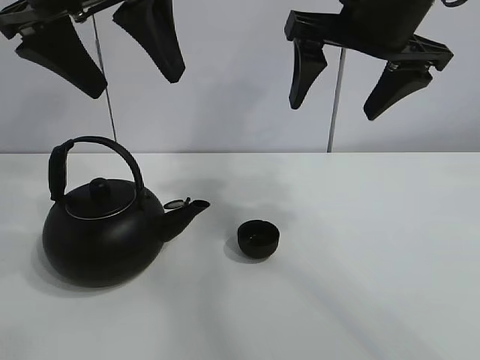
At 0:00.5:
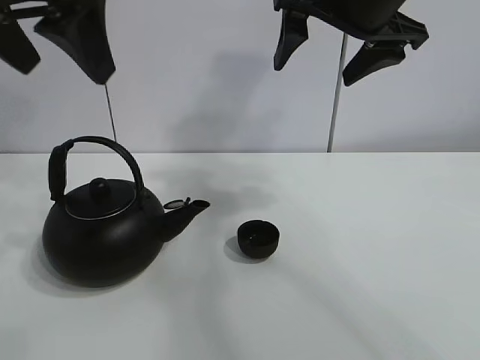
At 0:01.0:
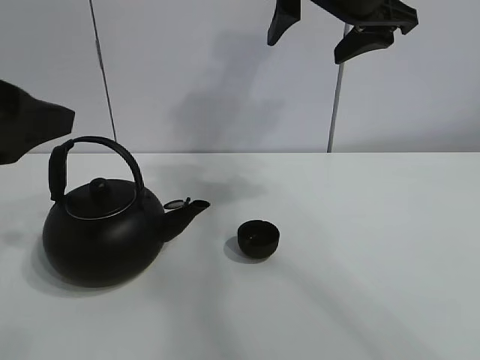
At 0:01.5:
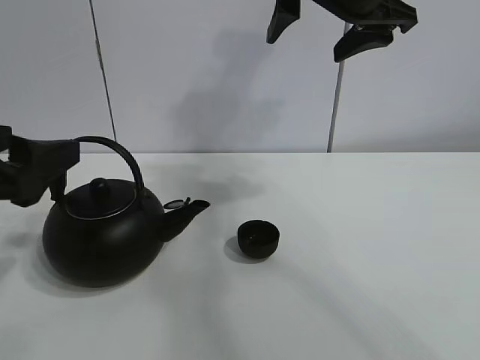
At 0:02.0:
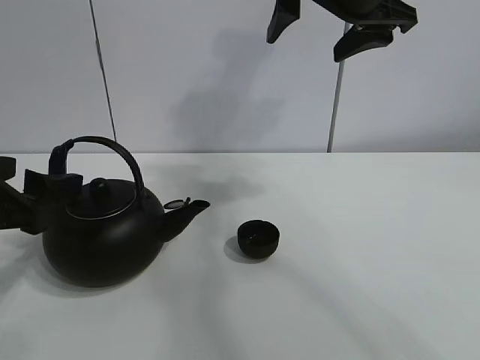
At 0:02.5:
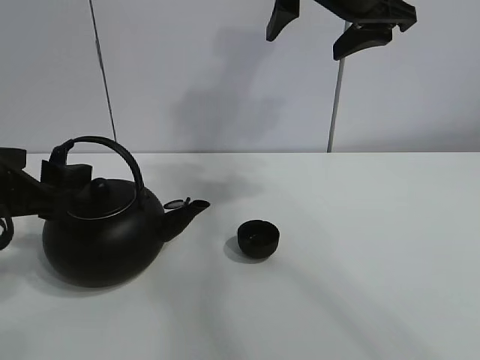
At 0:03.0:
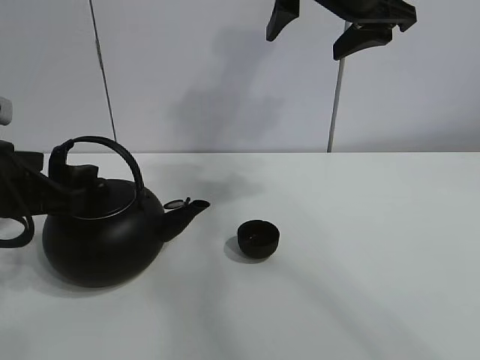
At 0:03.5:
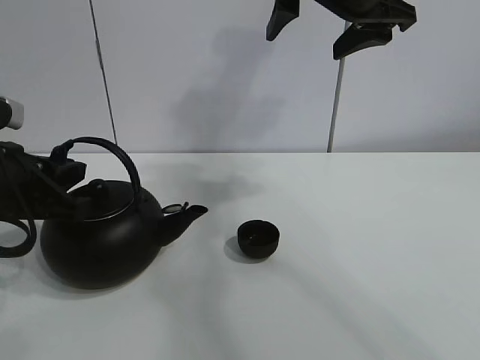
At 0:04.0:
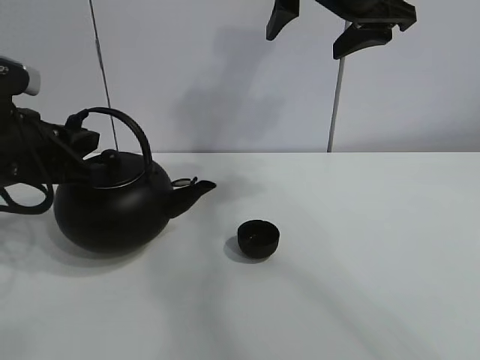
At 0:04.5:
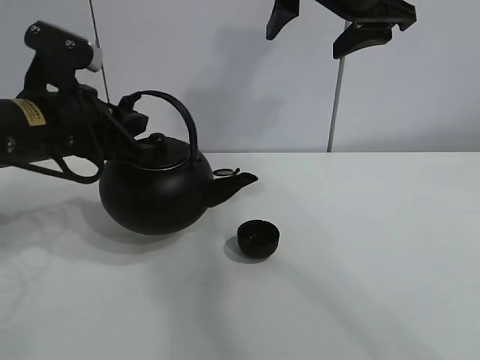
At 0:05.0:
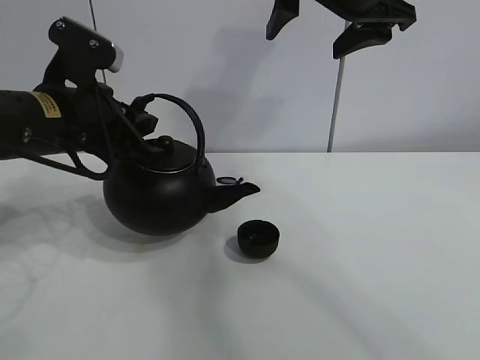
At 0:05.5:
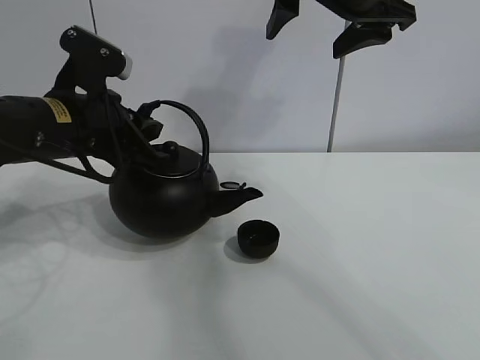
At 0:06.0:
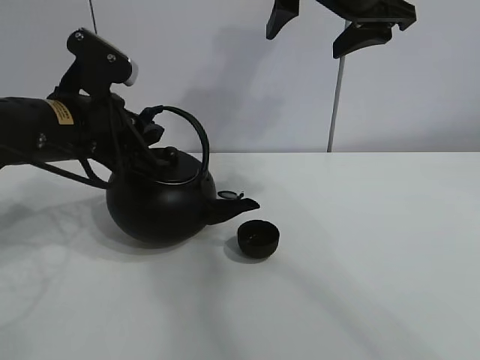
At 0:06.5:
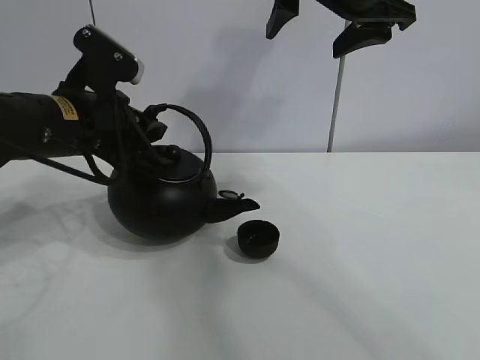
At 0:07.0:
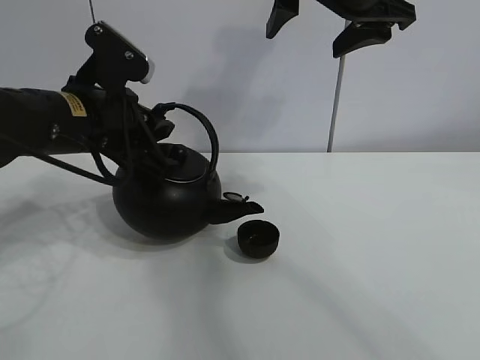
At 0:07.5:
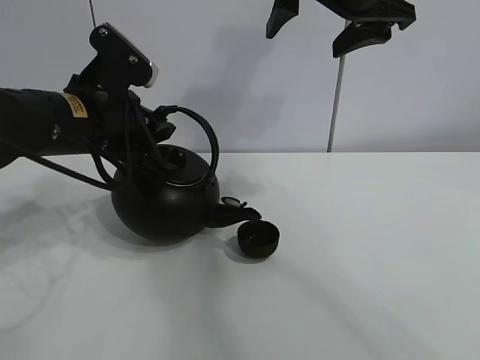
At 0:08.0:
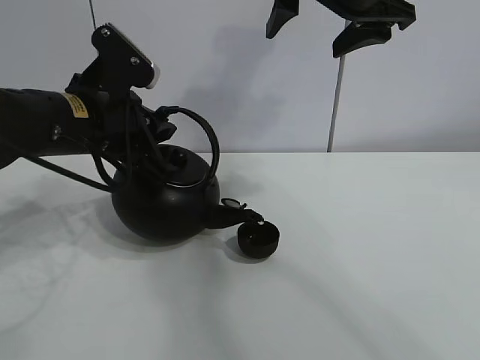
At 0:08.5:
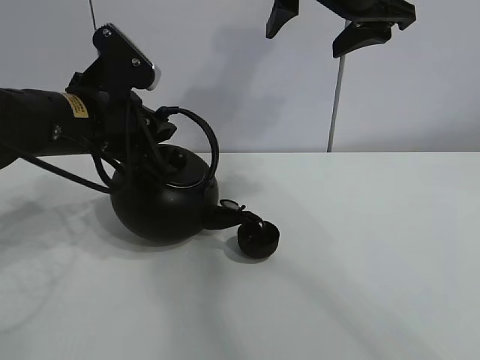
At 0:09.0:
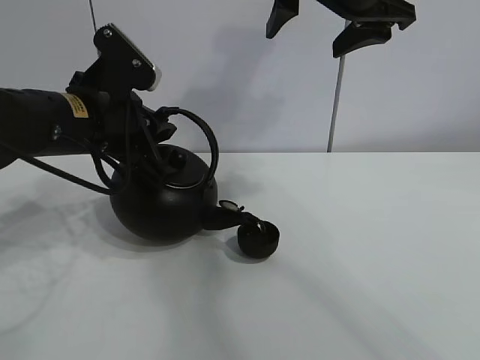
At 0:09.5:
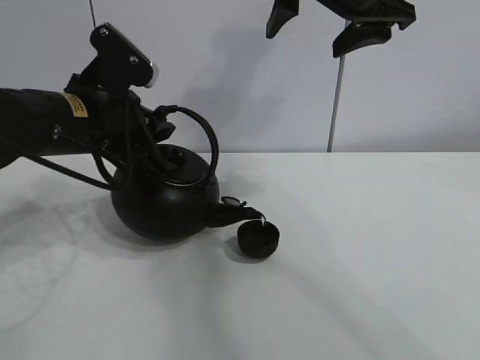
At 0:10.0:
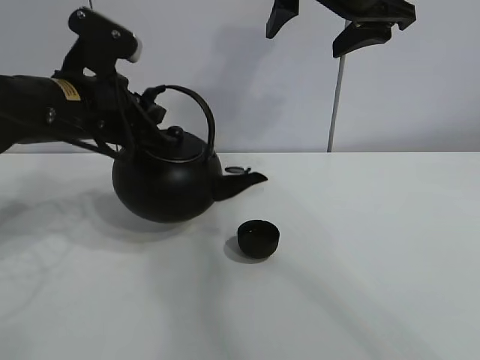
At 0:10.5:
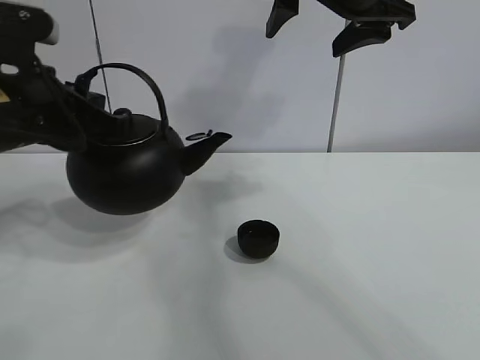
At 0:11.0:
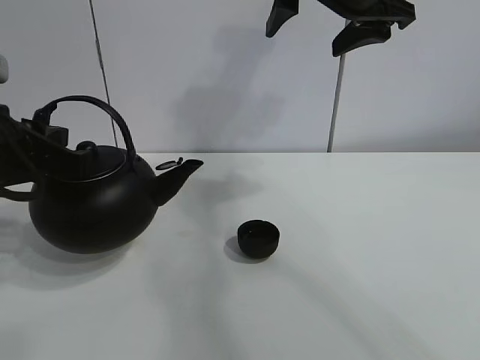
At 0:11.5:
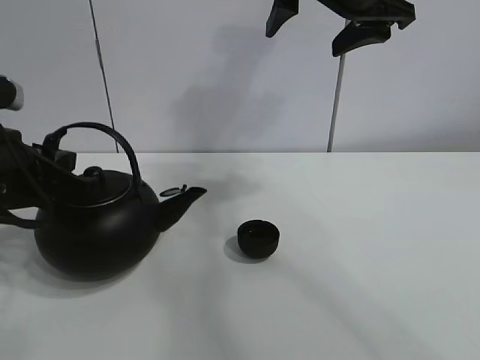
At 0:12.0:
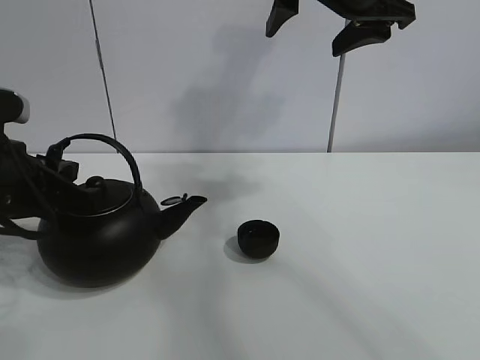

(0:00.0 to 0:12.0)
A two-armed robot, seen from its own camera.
Task of the whole recording: pour tea into the teacup.
Step, 0:00.0 - 0:03.5: Pick up the teapot with the left gripper.
Step, 0:04.0 - 0:09.5: Pour tea into the teacup with the left gripper.
0:00.0 - 0:02.0: The left gripper heads downward and to the left, covering approximately 20 cm.
0:02.0 - 0:04.0: The left gripper shifts some 5 cm forward, and closes.
0:04.0 - 0:06.0: The left gripper is displaced to the right by approximately 5 cm.
0:06.0 - 0:10.0: The grippers make only small movements.
0:10.0 - 0:12.0: The left gripper shifts some 10 cm backward and to the left.

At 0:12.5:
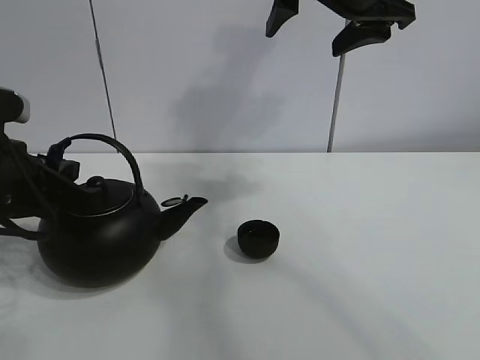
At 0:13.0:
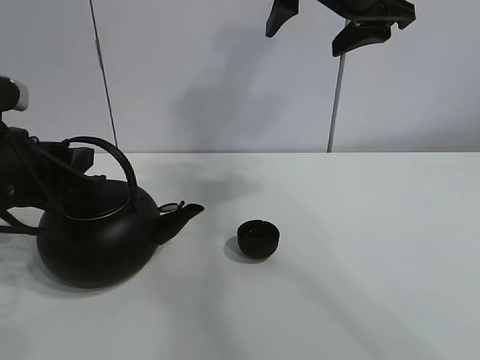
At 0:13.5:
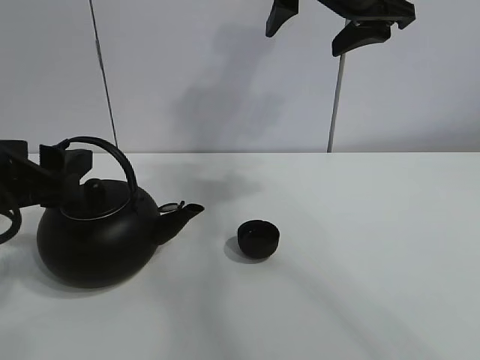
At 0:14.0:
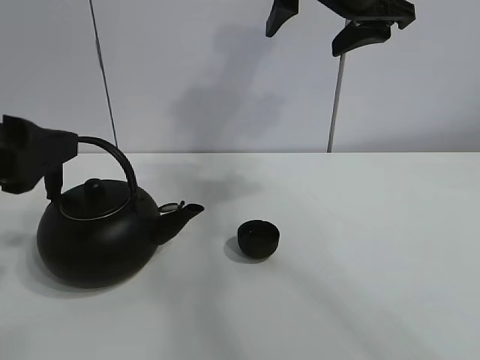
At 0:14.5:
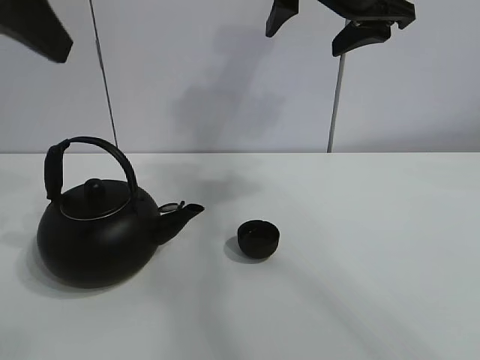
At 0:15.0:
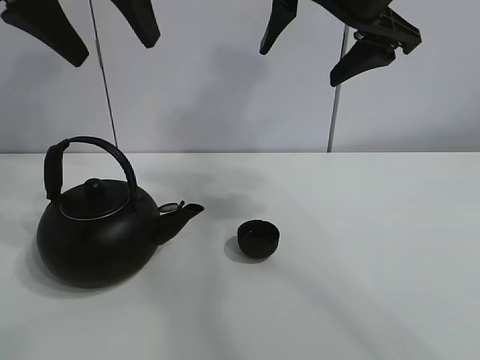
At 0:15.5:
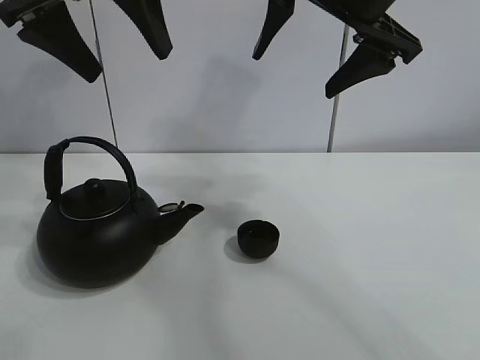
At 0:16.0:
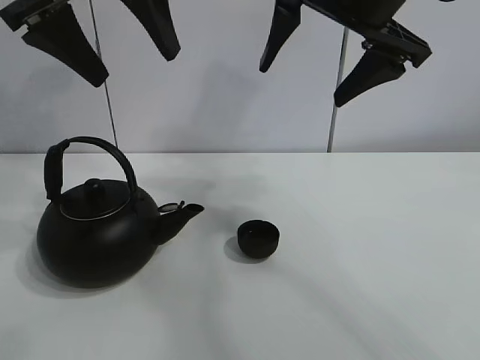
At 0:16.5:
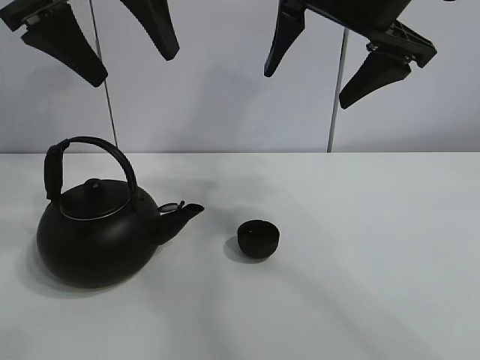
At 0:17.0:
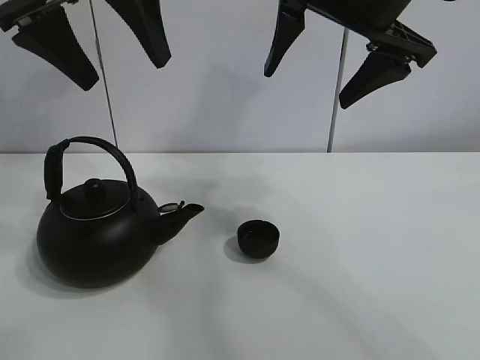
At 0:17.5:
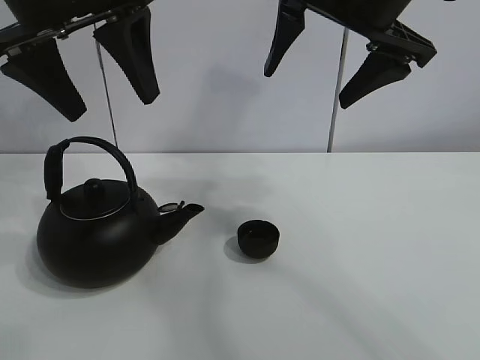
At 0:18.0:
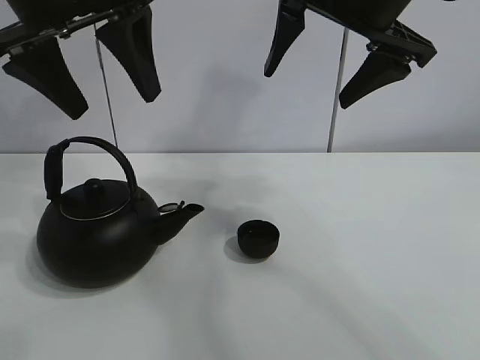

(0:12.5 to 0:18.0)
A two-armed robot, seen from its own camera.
Task of the whole recording: pour tea into the teacup.
0:12.5 - 0:14.5: The left gripper travels upward by approximately 20 cm, and opens up.
0:14.5 - 0:16.0: The left gripper goes approximately 10 cm forward and to the right.
0:16.0 - 0:18.0: The grippers move only a little.
